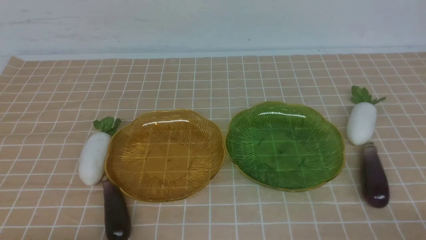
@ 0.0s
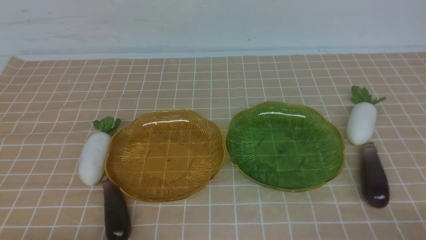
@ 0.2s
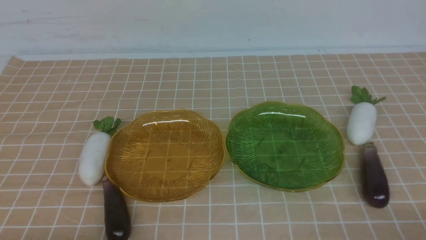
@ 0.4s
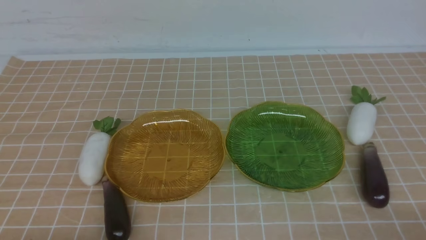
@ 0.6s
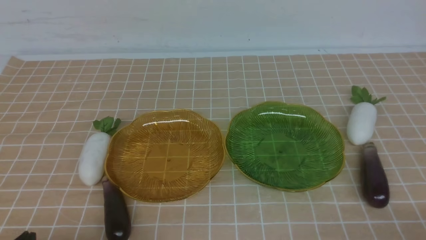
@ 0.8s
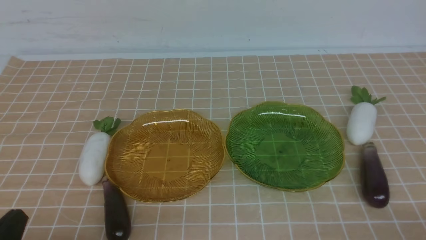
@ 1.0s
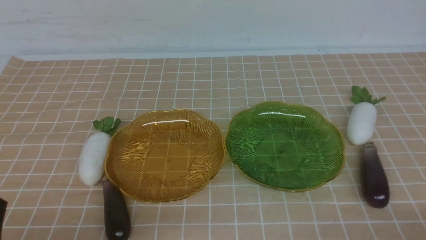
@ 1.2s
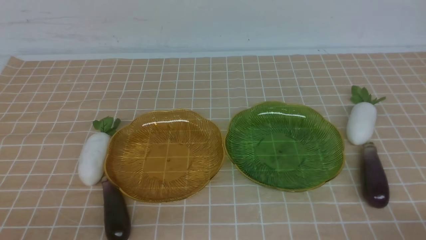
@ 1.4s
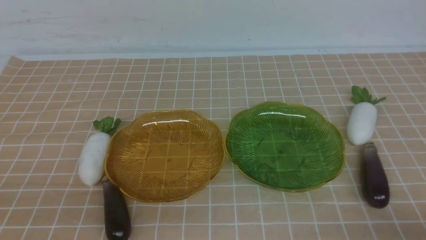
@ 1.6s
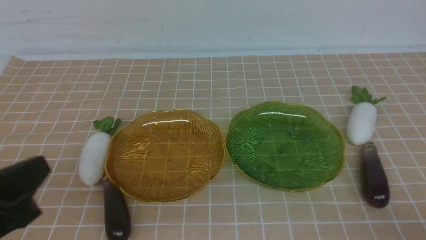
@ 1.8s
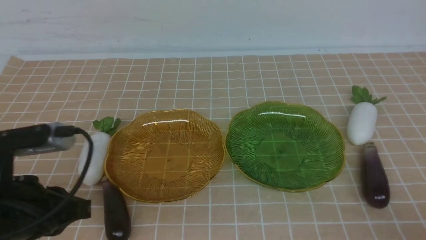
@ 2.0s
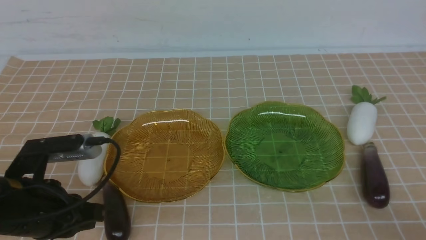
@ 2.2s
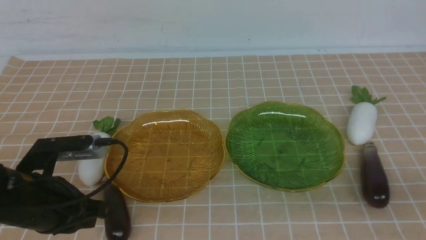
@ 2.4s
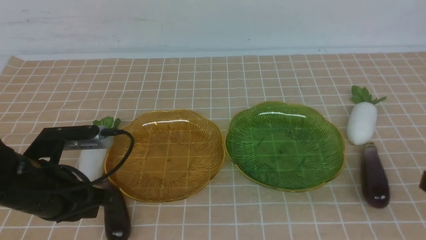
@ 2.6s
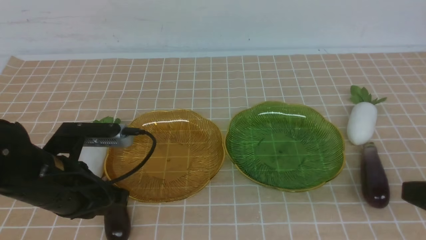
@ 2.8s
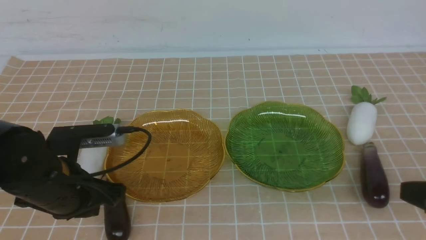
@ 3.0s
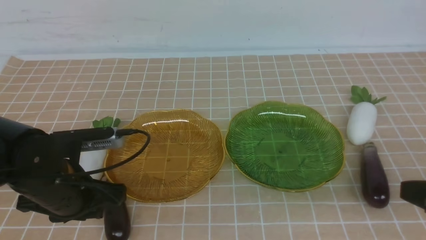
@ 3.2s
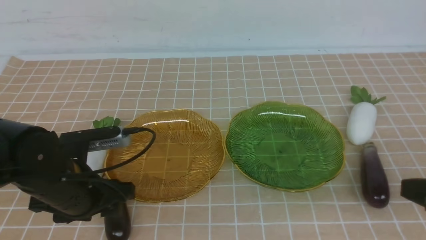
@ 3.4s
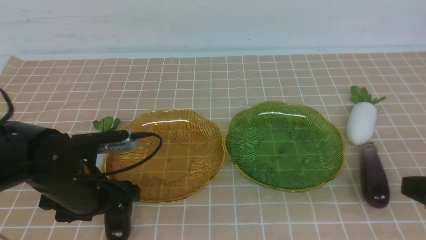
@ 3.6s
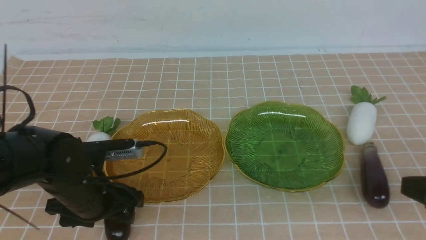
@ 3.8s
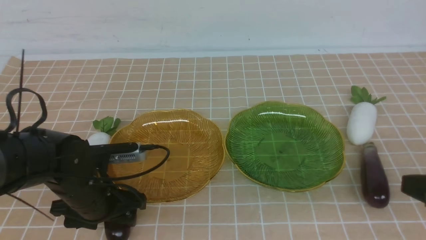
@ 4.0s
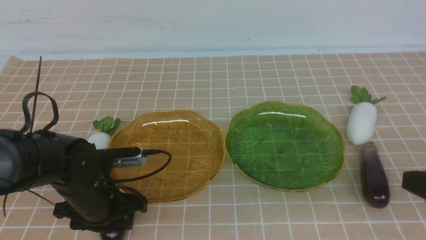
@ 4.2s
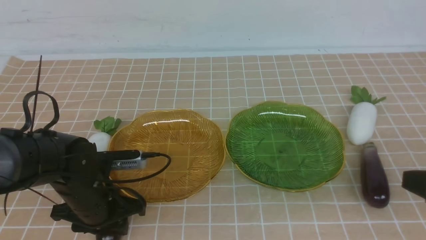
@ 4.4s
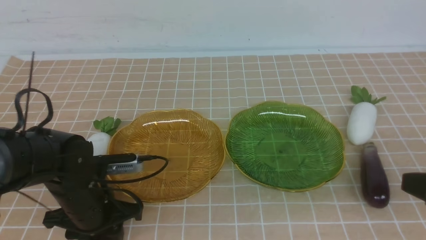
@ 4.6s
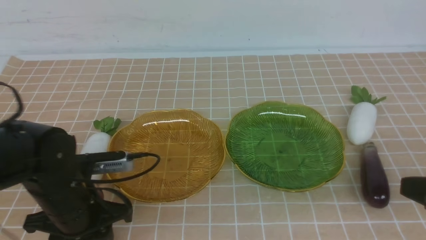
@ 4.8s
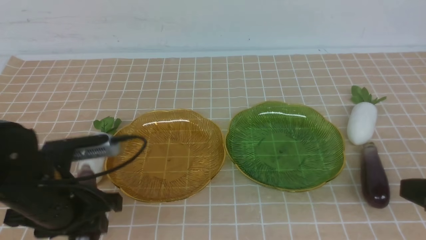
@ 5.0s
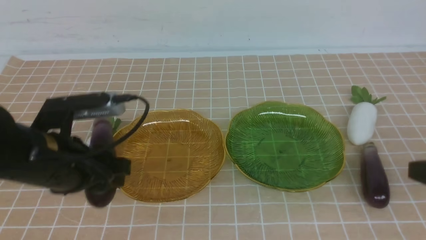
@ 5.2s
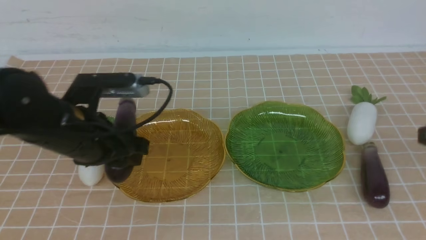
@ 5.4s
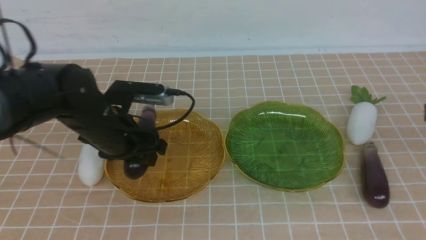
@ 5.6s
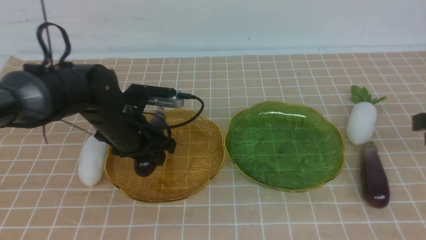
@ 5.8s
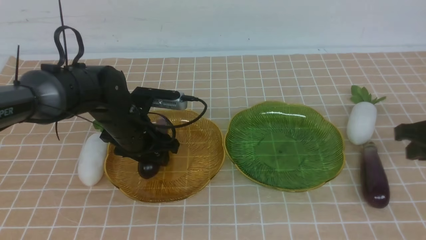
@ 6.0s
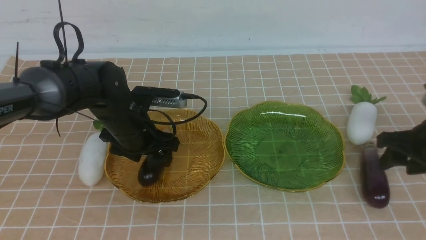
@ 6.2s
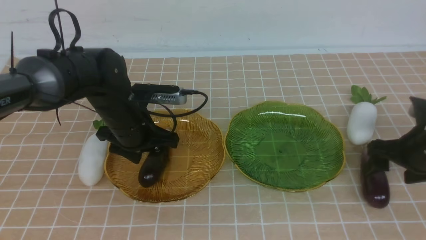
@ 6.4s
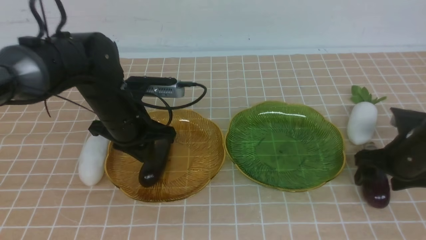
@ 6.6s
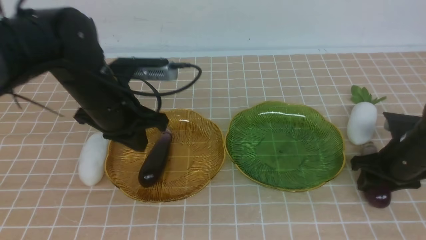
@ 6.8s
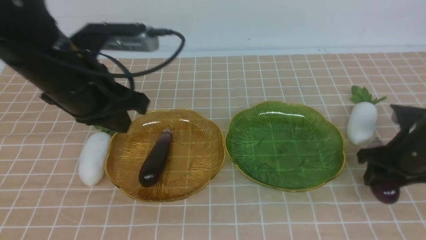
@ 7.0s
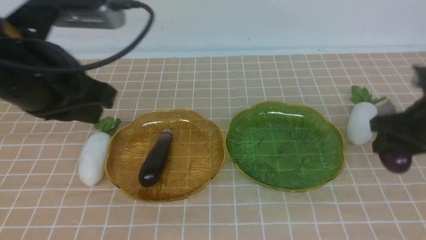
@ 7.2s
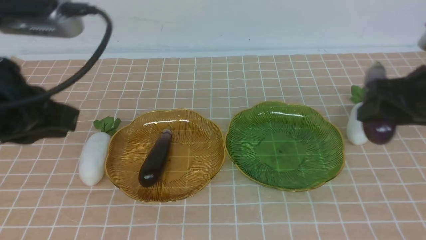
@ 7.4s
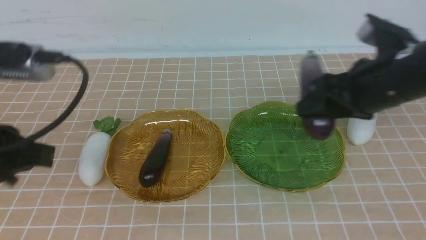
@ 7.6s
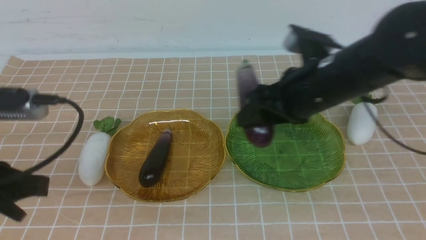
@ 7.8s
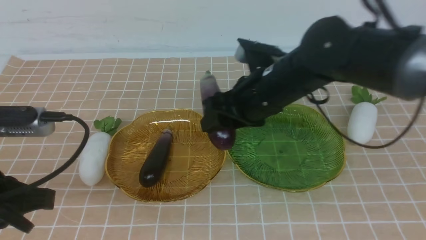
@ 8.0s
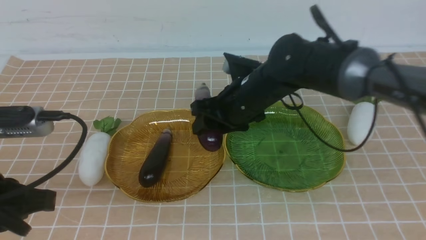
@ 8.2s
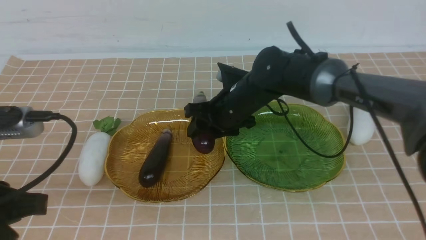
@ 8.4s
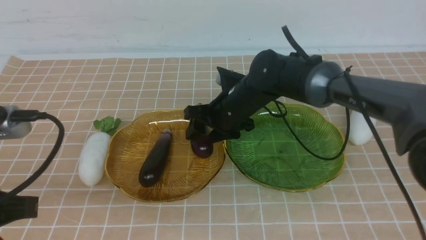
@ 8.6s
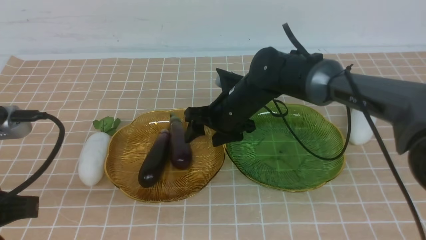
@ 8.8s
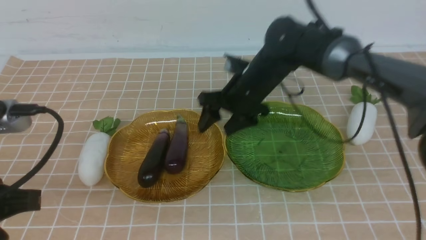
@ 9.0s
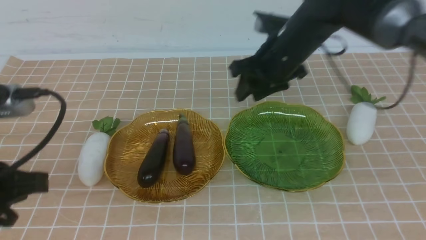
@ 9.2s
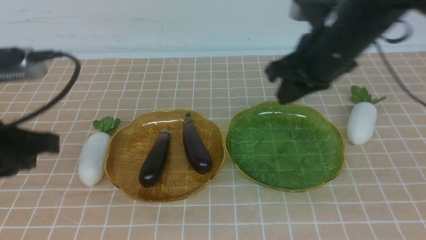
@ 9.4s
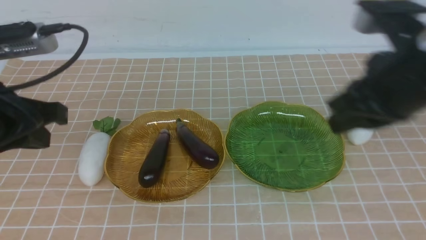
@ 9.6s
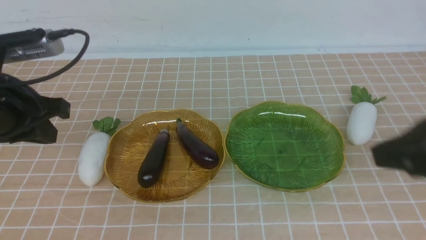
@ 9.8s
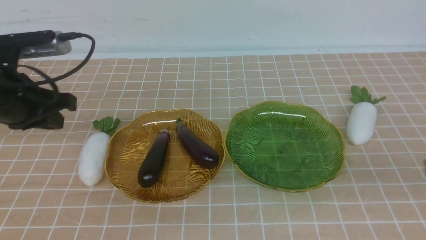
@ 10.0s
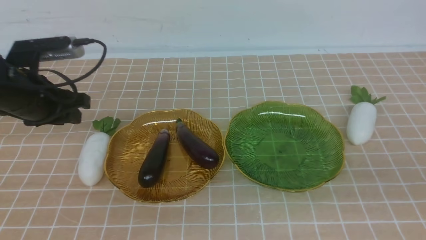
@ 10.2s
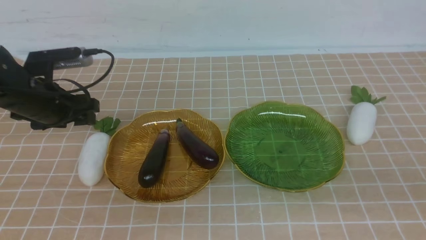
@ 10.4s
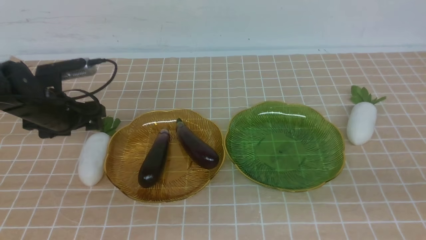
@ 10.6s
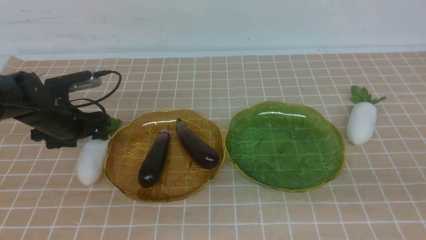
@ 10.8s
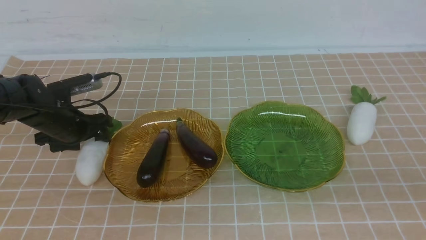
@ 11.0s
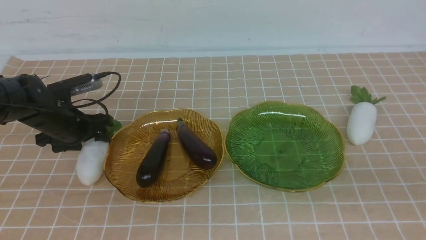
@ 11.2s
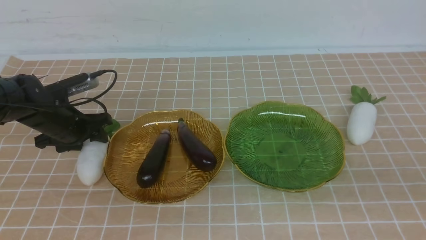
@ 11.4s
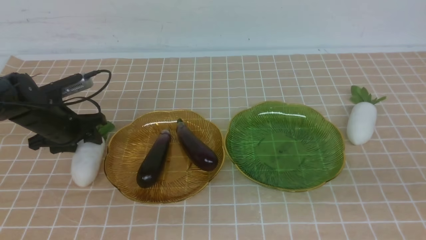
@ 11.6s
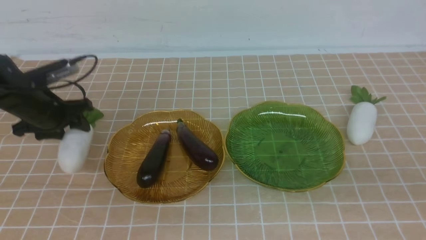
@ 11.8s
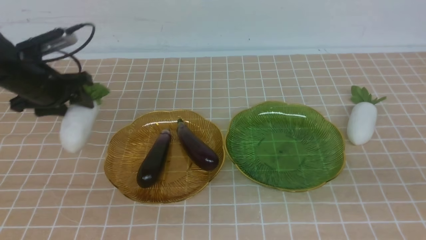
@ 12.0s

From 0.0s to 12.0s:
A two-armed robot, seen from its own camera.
Step, from 0.0s to 6.4s: use the left arm to grab an eggplant and put it into the left plate.
Step, from 6.6s to 9.0s: use the right arm to grab an eggplant and put it into the left plate.
From 1.6s to 3.0s: The right gripper goes approximately 10 cm upward and forward; the left gripper shifts about 15 cm forward.
From 3.0s to 4.4s: The left gripper goes about 5 cm downward, and opens and closes again.
From 4.4s to 6.0s: Both grippers move forward, about 10 cm.
From 6.0s to 7.6s: The right gripper goes about 20 cm to the left, and opens, while the left gripper travels backward, upward and to the left by roughly 25 cm, and closes.
From 7.6s to 9.0s: The right gripper goes approximately 15 cm upward, to the right and backward, and closes. Meanwhile the left gripper shifts about 5 cm forward.
From 9.0s to 10.4s: The right gripper moves backward and to the right, about 20 cm; the left gripper moves downward and forward, some 25 cm, and opens up.
From 10.4s to 12.0s: The left gripper shifts about 30 cm to the right.

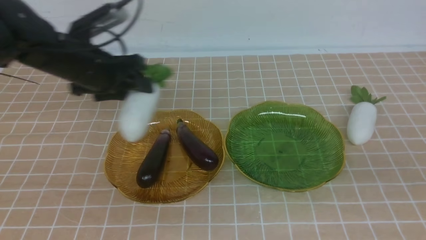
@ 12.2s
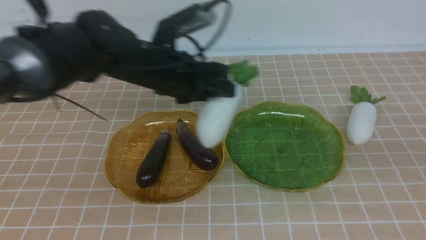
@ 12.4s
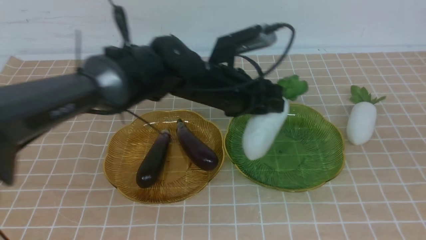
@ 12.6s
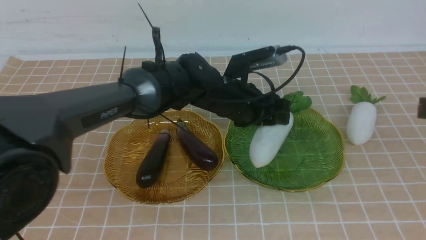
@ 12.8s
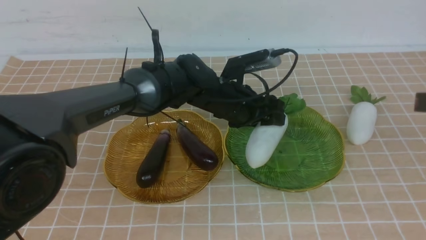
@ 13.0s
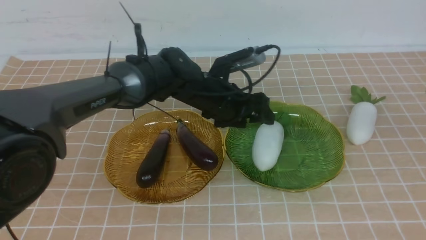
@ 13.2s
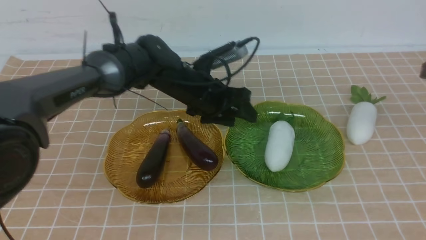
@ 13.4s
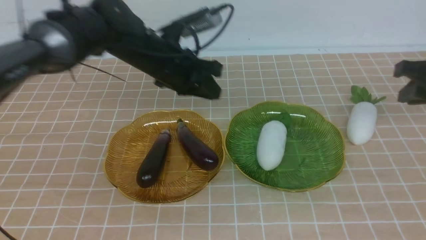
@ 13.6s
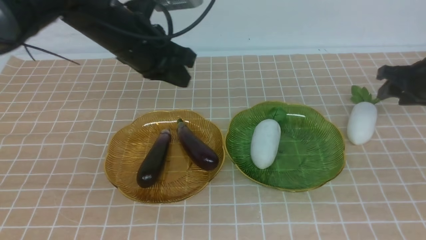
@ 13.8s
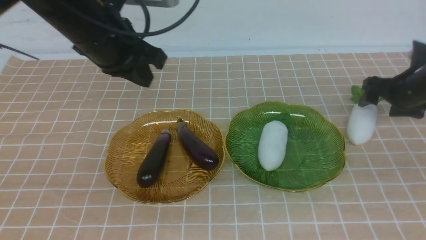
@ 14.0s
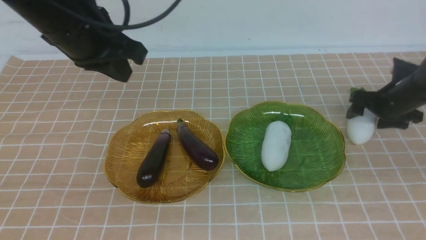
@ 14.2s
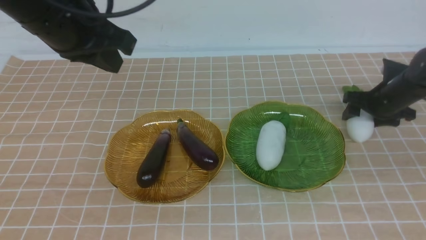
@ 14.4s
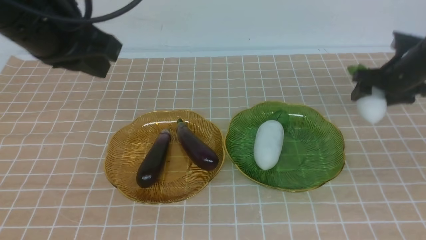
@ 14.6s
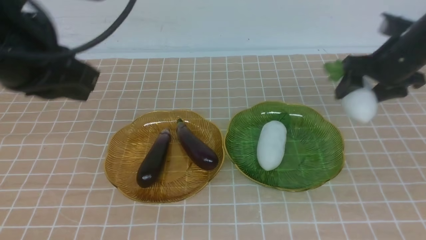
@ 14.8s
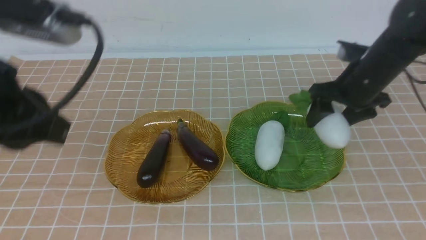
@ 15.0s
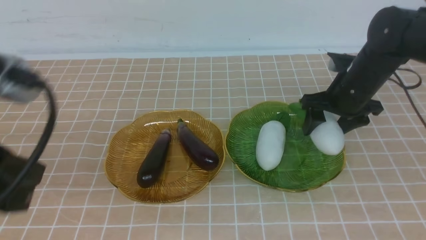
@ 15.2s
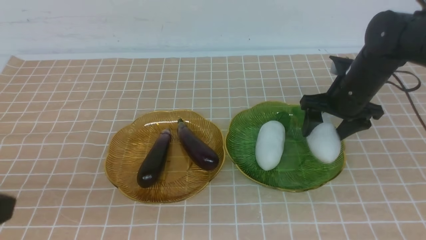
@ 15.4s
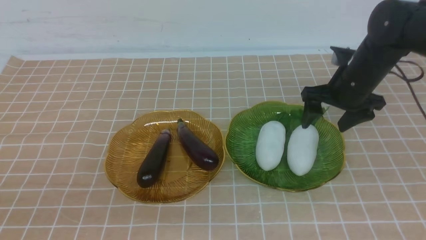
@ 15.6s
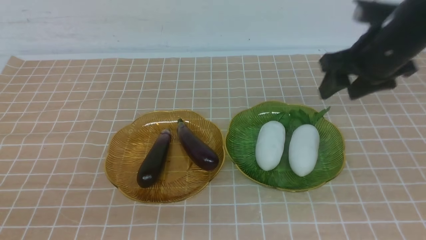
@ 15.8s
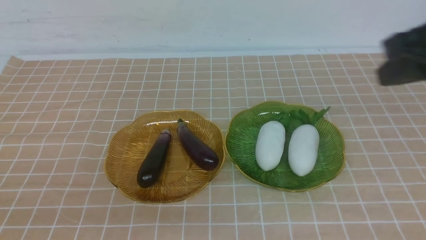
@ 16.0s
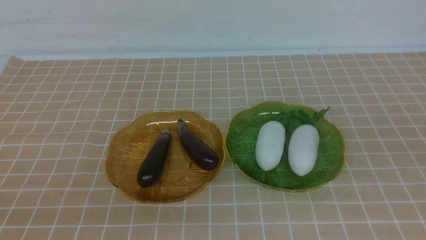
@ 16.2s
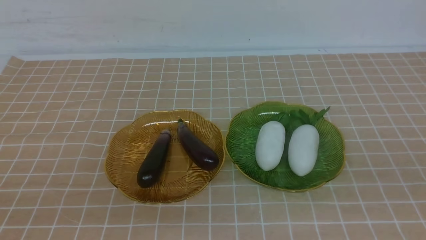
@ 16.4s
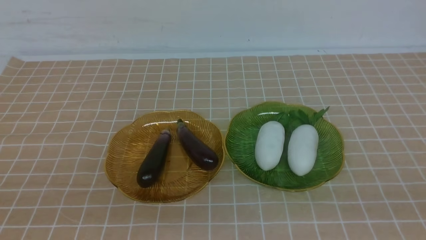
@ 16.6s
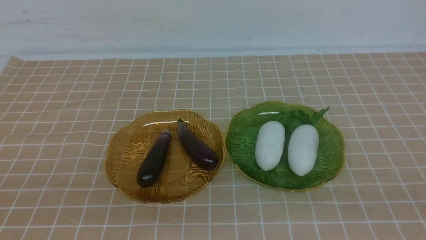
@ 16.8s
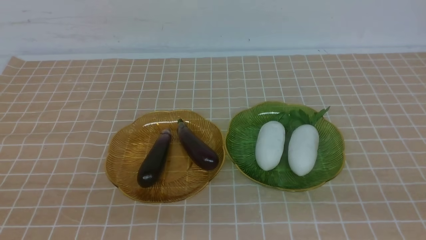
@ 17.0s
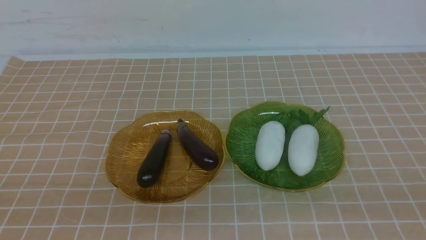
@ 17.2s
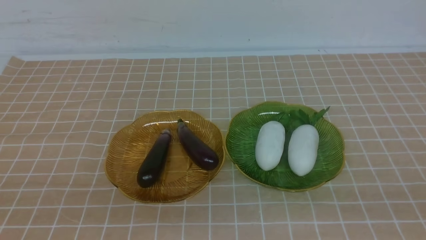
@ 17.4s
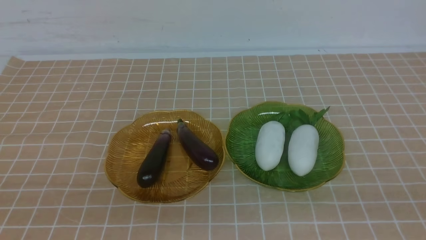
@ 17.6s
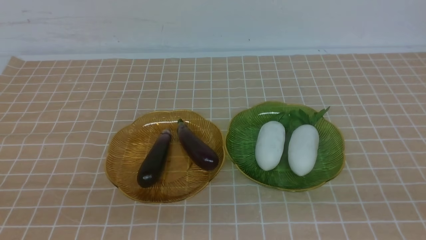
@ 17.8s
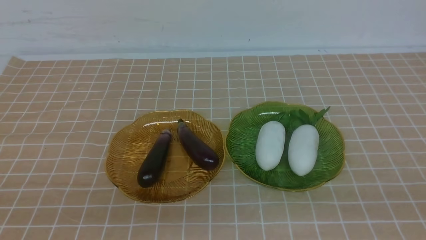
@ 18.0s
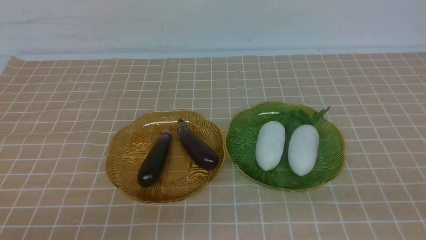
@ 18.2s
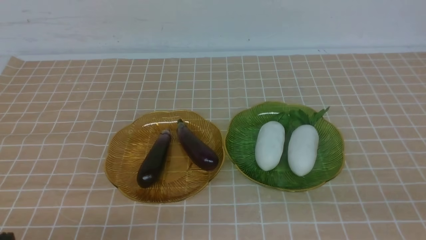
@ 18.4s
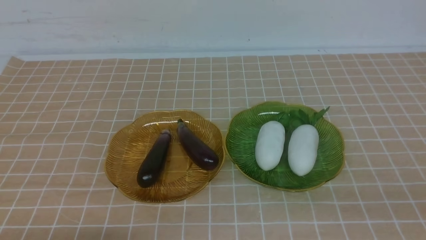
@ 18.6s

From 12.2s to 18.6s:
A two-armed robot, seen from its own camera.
Step, from 13.6s to 15.8s: use the right arm to grab a radish and put it into the right plate.
From 12.2s to 13.8s: The left gripper shifts approximately 30 cm upward, to the left and backward, and closes. Meanwhile the right gripper shifts about 30 cm forward and downward, and opens its fingers.
From 13.8s to 15.4s: The left gripper shifts about 25 cm backward. Meanwhile the right gripper heads backward and upward, covering some 40 cm, and closes.
From 15.4s to 17.0s: The right gripper travels backward and downward by approximately 15 cm.
